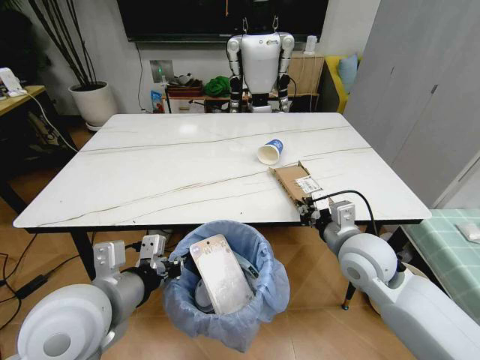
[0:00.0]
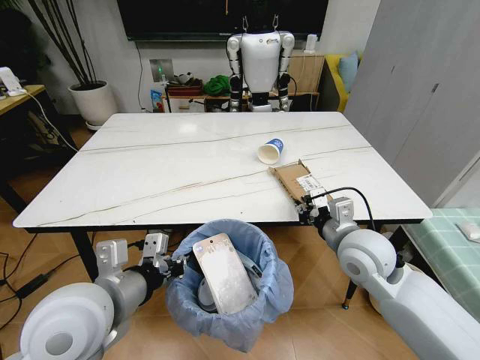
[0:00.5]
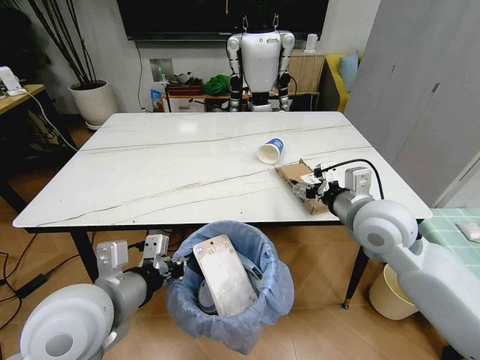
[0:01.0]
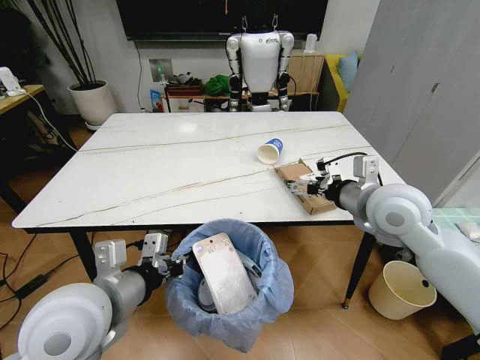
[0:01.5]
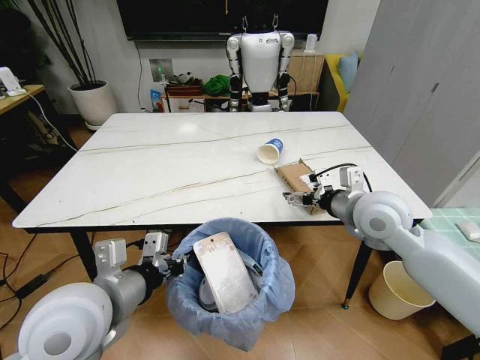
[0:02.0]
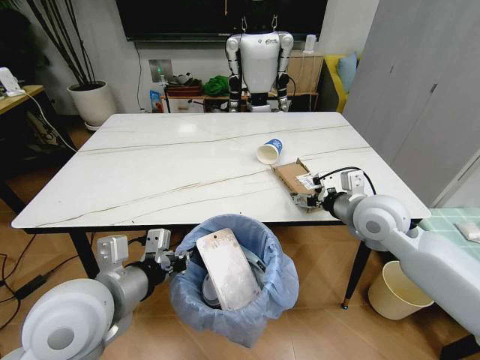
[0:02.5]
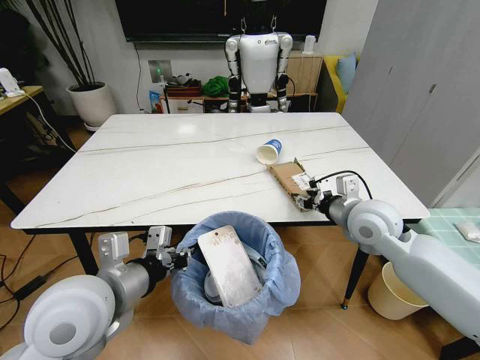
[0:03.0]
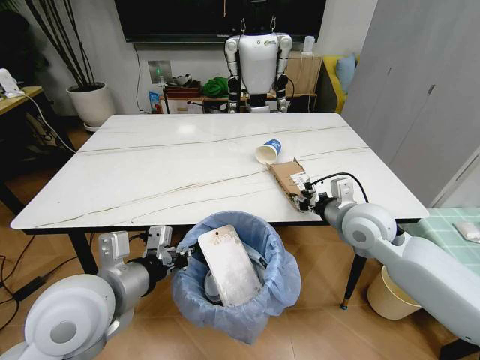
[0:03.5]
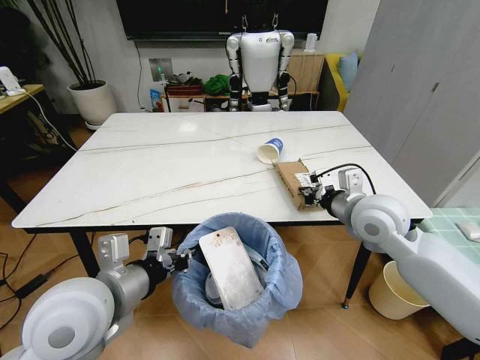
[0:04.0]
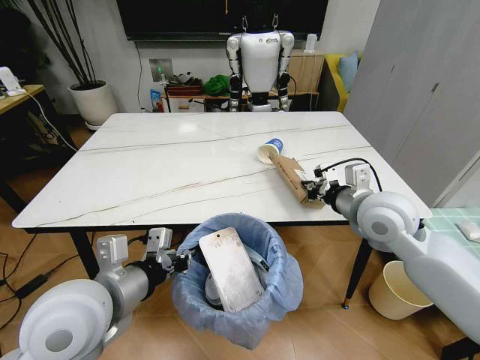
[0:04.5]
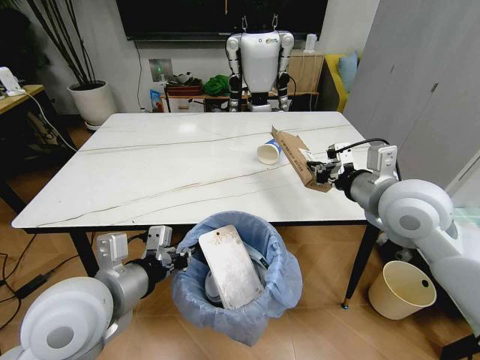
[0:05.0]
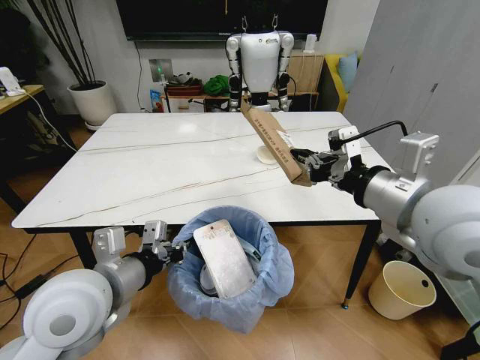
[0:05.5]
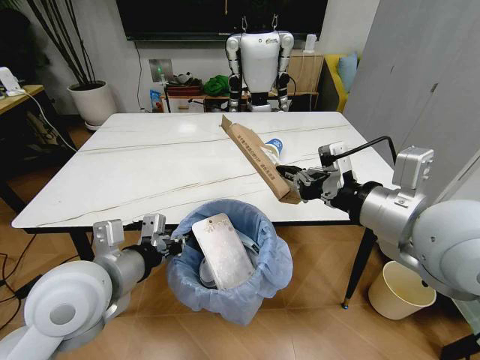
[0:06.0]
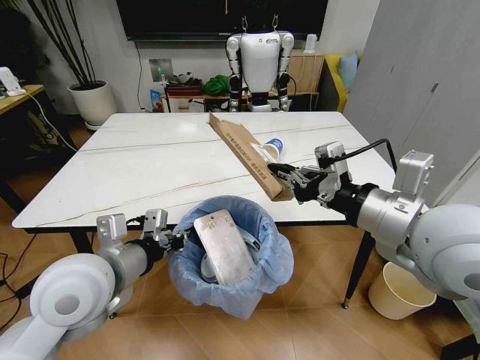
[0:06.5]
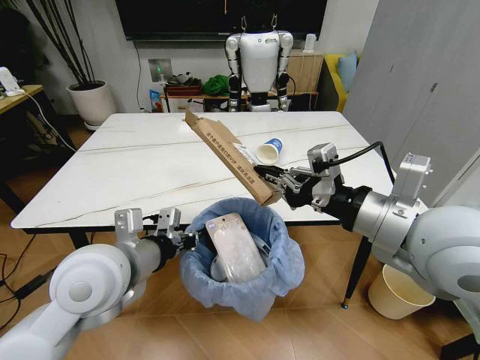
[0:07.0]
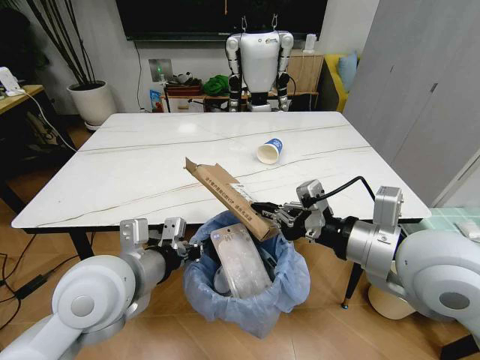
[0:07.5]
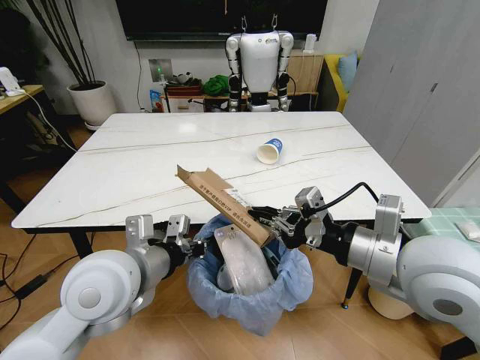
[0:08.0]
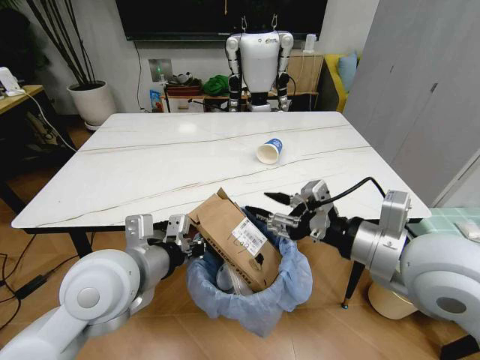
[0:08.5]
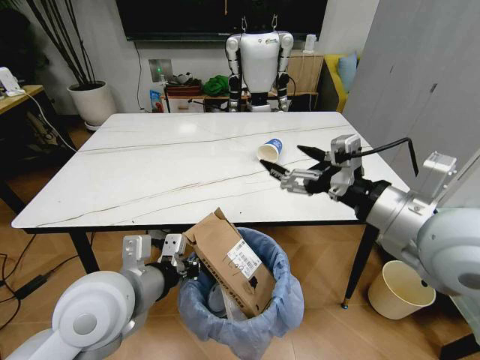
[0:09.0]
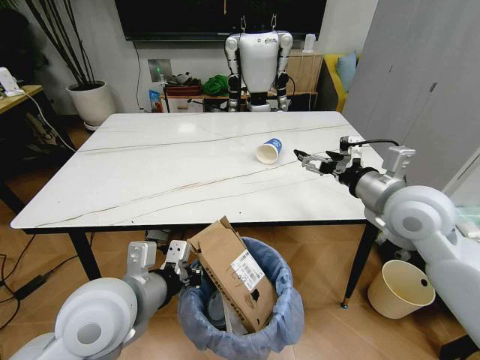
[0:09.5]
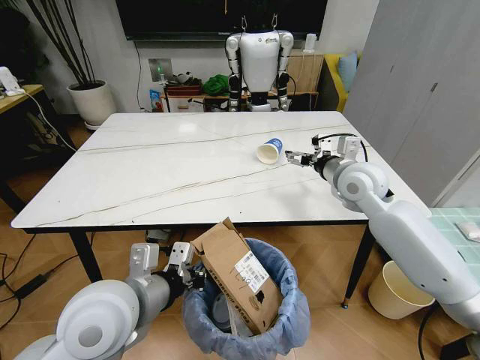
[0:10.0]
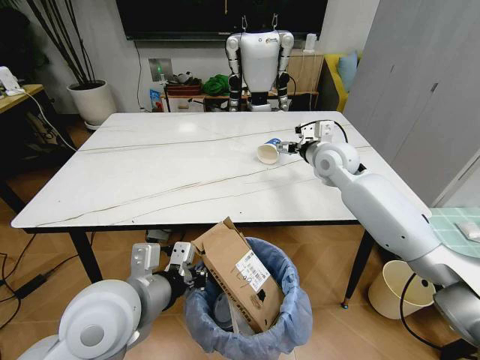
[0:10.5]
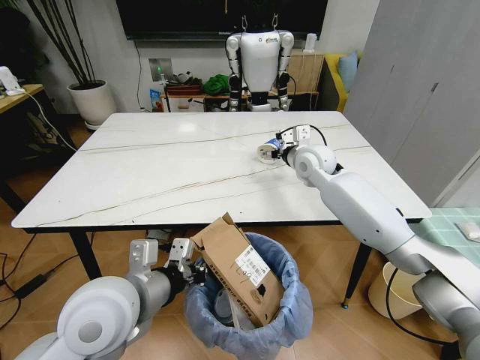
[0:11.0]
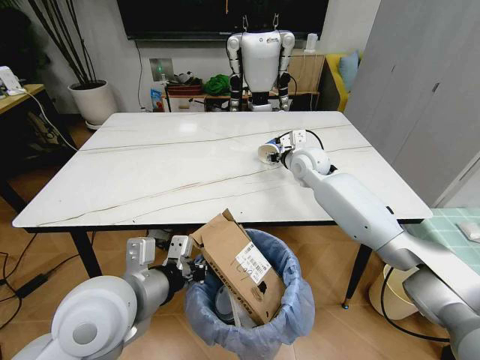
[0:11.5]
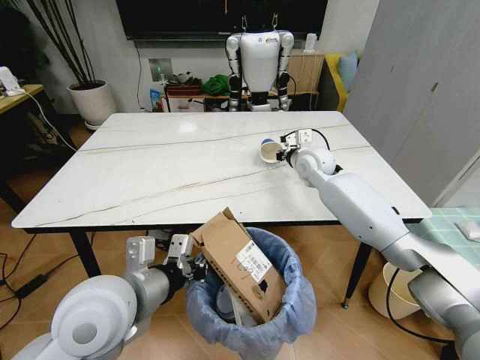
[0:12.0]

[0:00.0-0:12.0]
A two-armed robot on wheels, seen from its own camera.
Task of the whole recording: Pick up the trash bin and place the trash from the table into it.
0:00.0 to 0:02.0: The right gripper shifts approximately 10 cm upward and forward, and opens.
0:02.0 to 0:04.0: The right gripper closes.
0:04.0 to 0:06.0: The right gripper goes some 20 cm backward and upward.
0:06.0 to 0:08.0: The right gripper goes some 5 cm downward.
0:08.0 to 0:10.0: The right gripper moves forward, about 25 cm, and opens.
0:10.0 to 0:12.0: The right gripper moves forward and to the left, some 15 cm, and closes up.

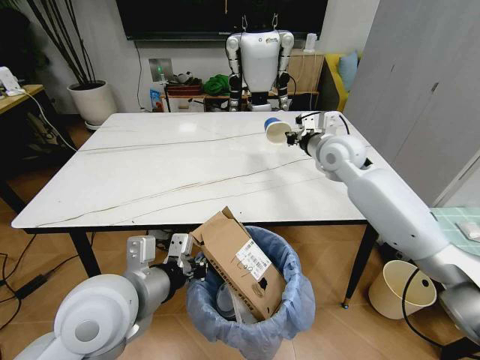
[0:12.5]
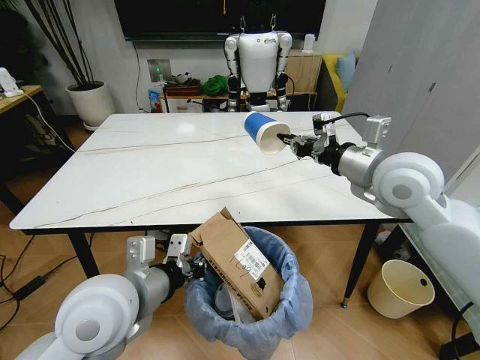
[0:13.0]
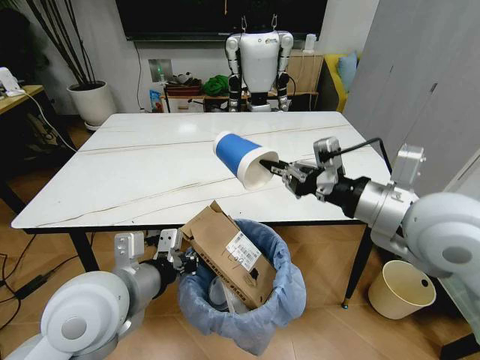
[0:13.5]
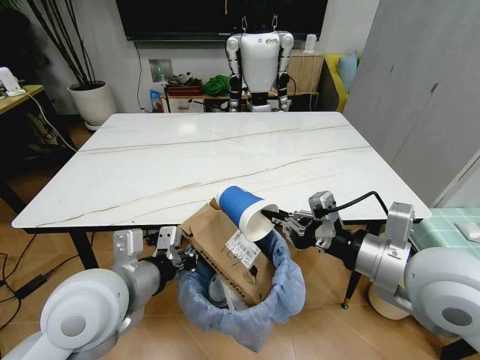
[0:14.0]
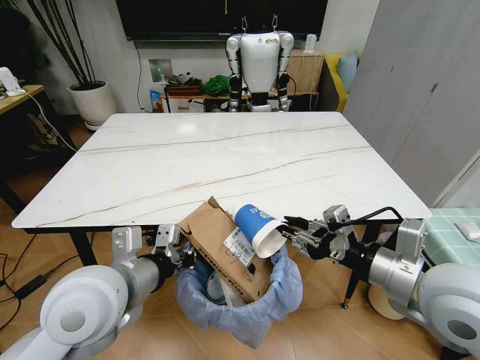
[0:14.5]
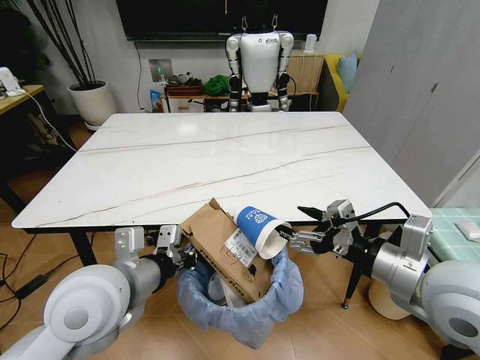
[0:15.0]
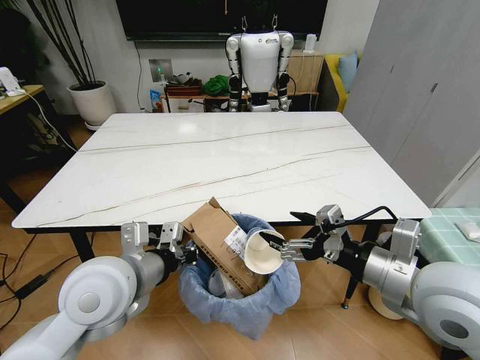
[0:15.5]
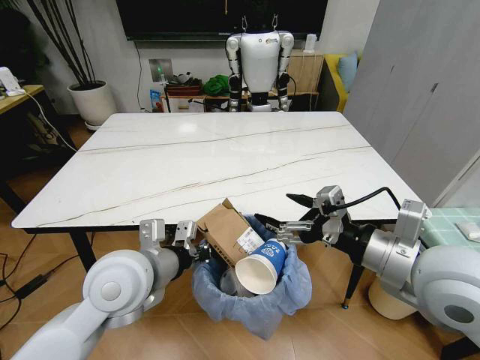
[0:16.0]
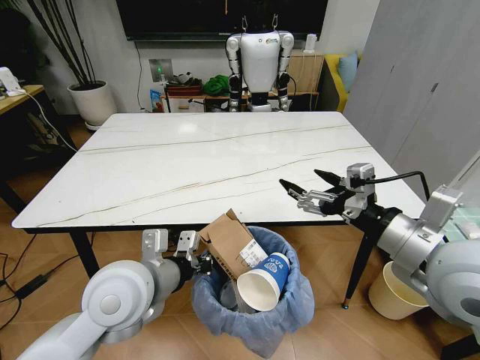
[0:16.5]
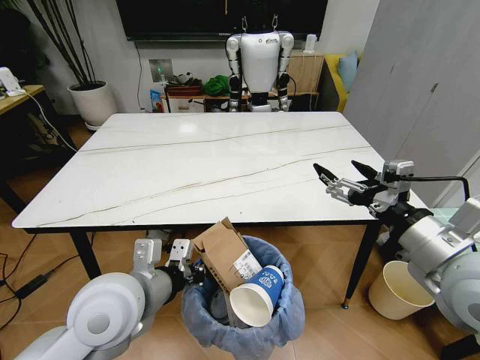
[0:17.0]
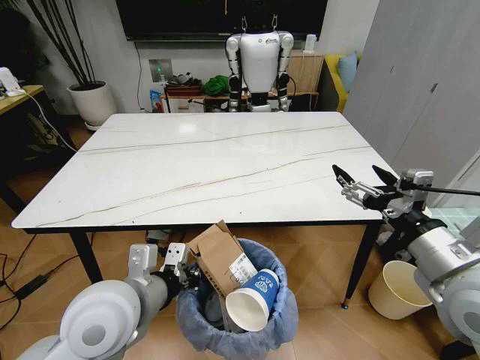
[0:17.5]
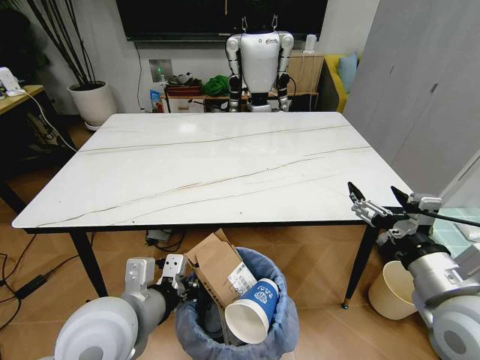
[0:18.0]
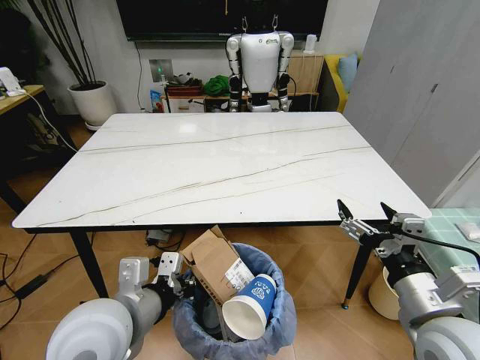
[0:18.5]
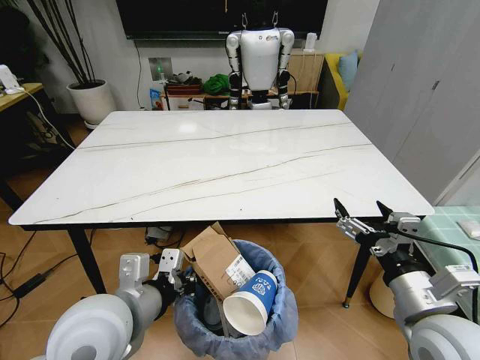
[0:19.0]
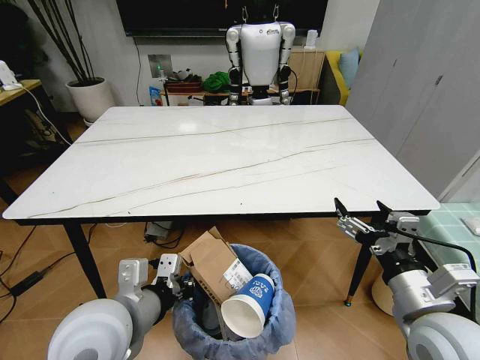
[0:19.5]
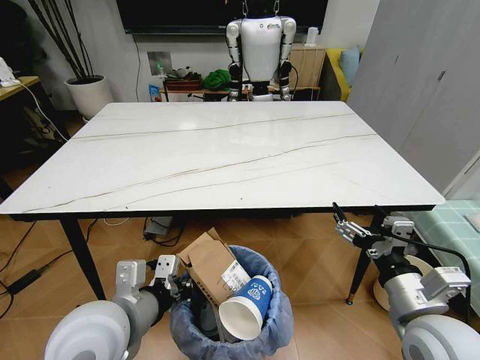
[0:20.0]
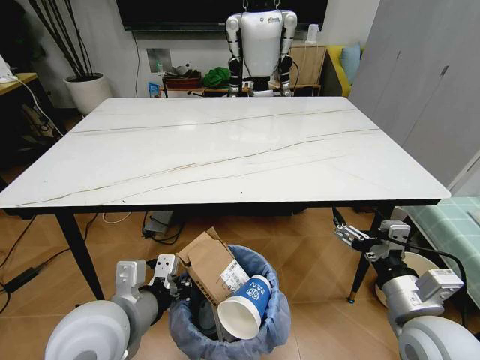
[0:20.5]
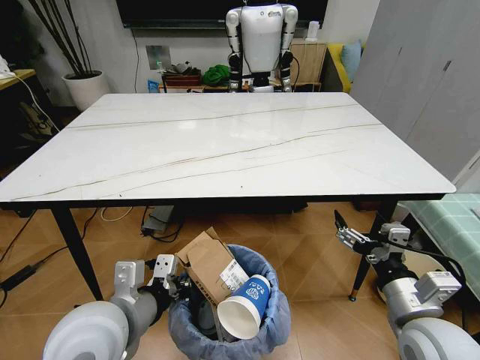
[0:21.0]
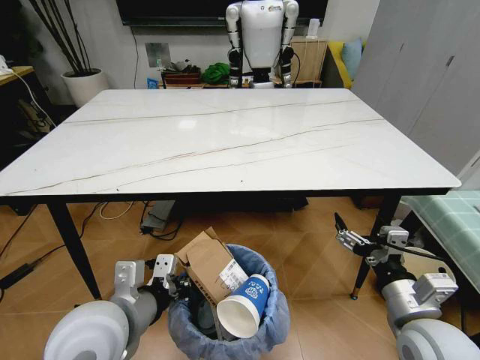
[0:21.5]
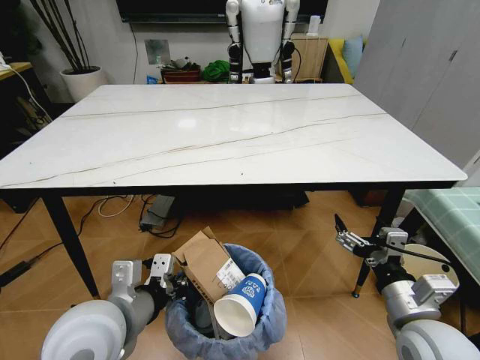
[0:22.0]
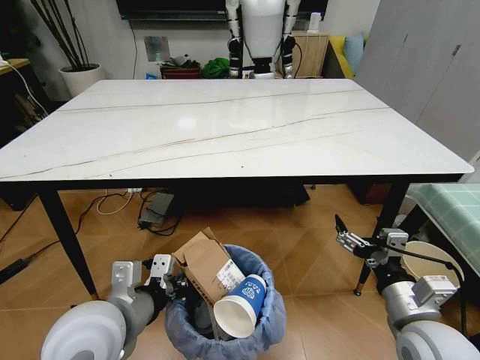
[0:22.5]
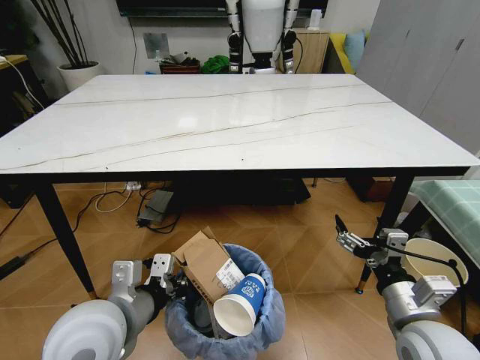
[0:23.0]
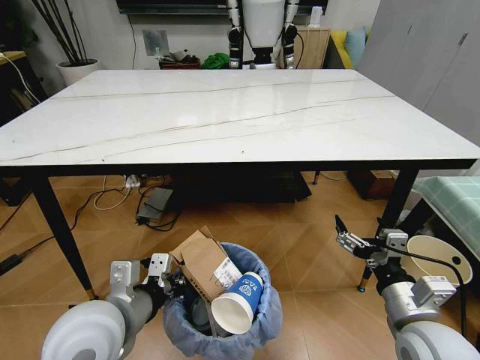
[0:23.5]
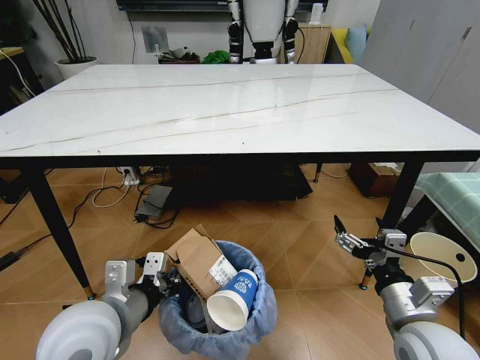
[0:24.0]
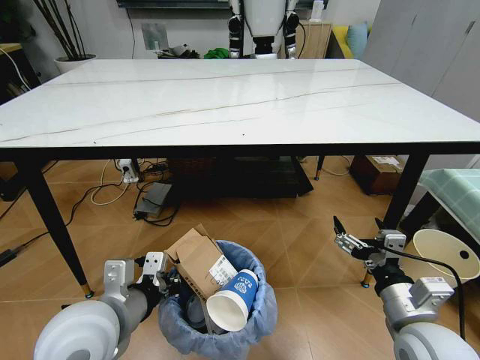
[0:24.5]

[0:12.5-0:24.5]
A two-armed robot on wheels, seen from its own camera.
Task of the whole recording: Pick up the trash bin and place the trash from the table into it.
0:12.5 to 0:14.5: The right gripper heads backward, covering roughly 30 cm.
0:14.5 to 0:16.5: The right gripper opens.
0:16.5 to 0:18.5: The left gripper moves backward, about 5 cm, while the right gripper heads downward and backward, covering approximately 10 cm.

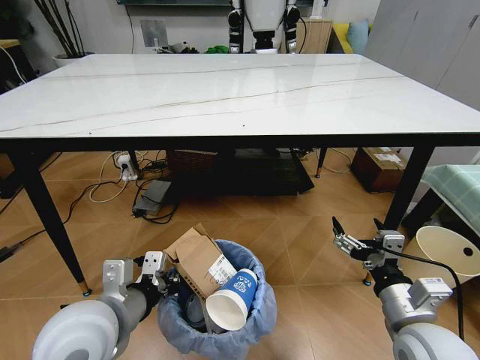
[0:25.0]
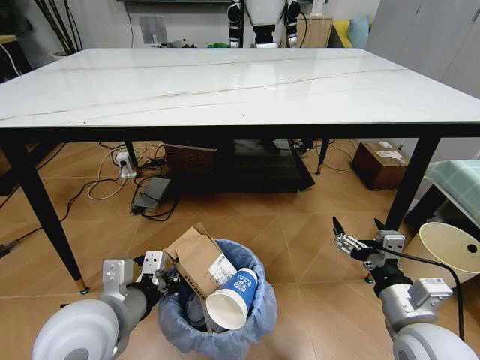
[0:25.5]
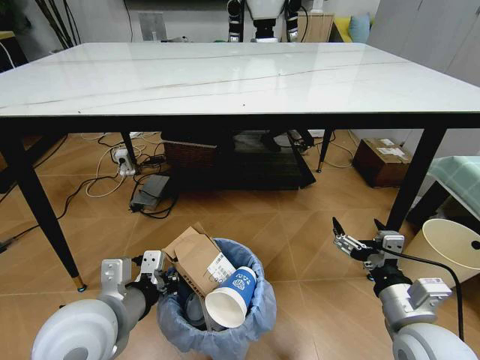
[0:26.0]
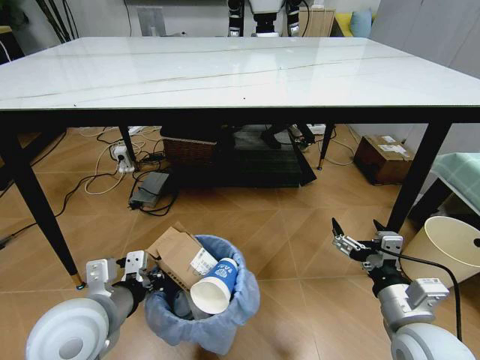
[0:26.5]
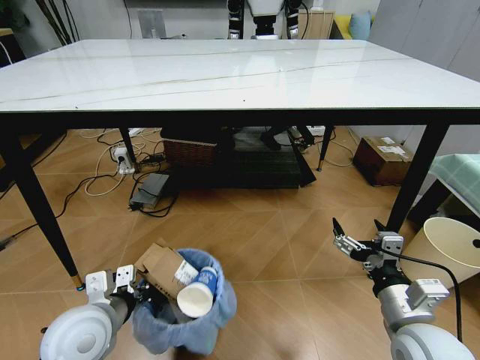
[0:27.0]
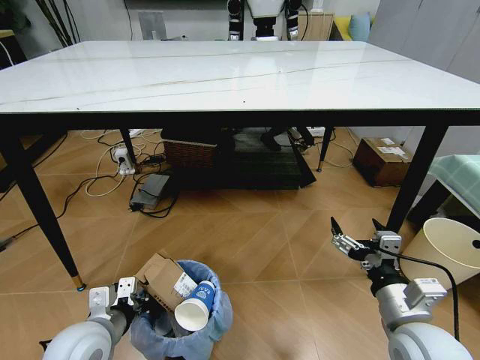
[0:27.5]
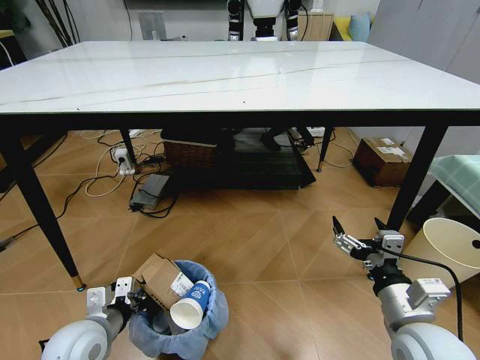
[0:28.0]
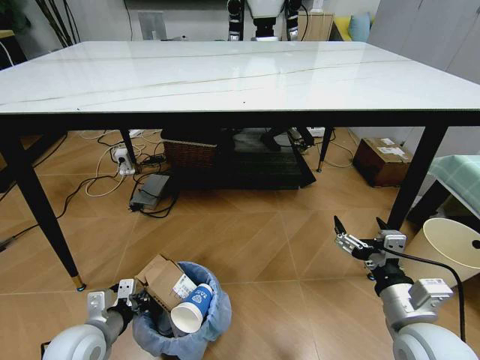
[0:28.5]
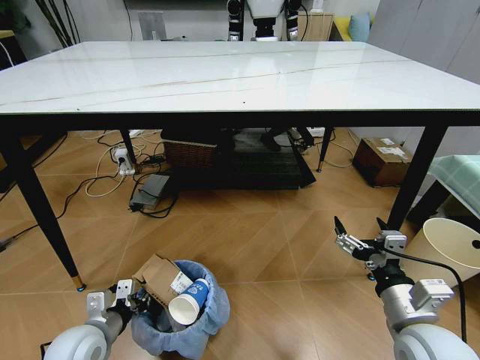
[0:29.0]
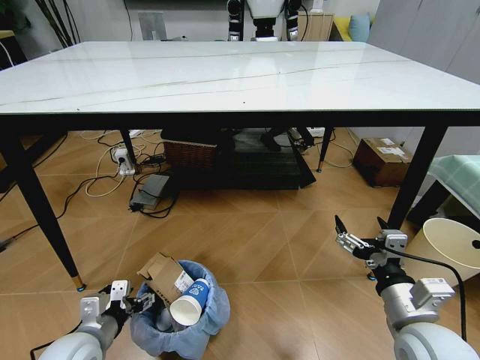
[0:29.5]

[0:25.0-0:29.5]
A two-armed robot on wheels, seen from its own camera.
Task of the whole recording: Pick up the trash bin and place the trash from the table into it.
0:25.0 to 0:27.0: The left gripper moves downward, about 5 cm.
0:27.0 to 0:29.5: The left gripper travels downward by about 10 cm, and opens up.
